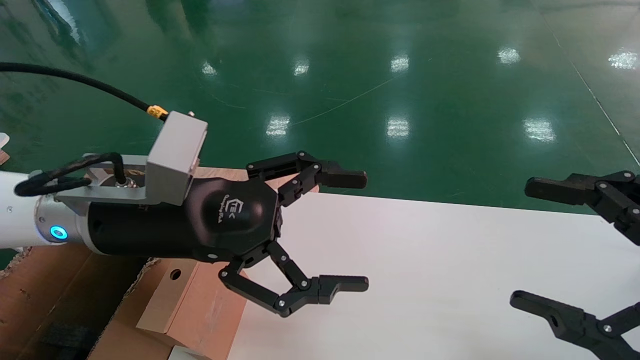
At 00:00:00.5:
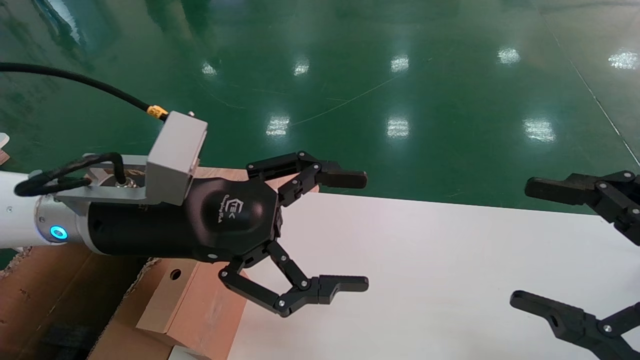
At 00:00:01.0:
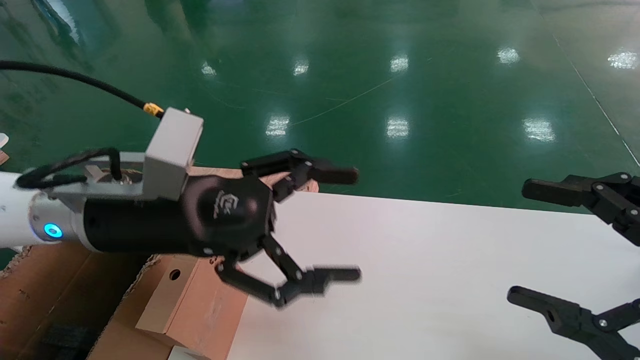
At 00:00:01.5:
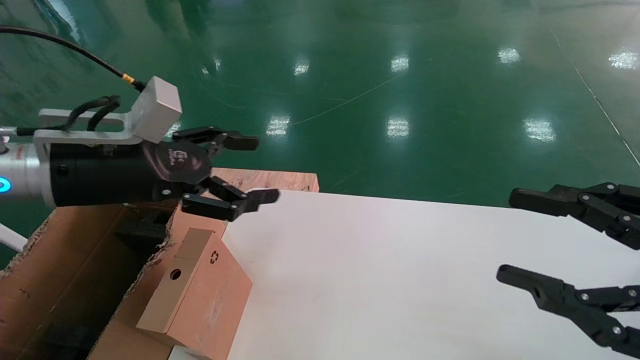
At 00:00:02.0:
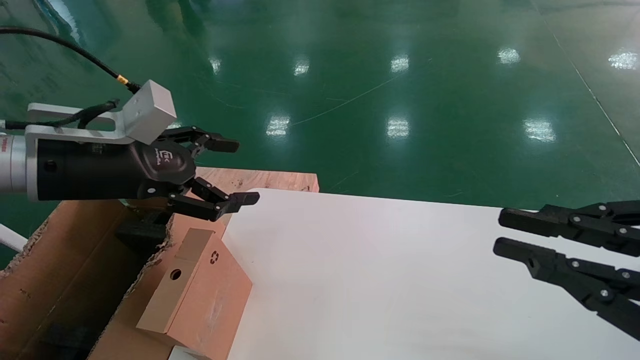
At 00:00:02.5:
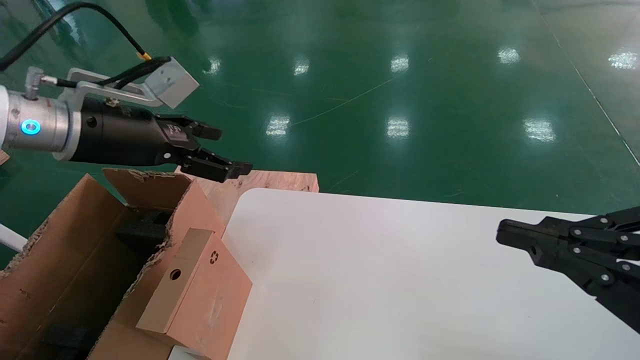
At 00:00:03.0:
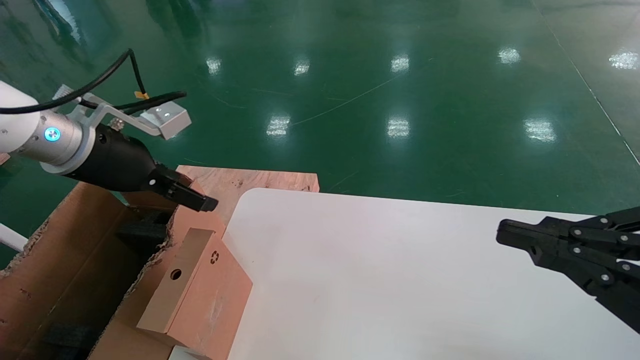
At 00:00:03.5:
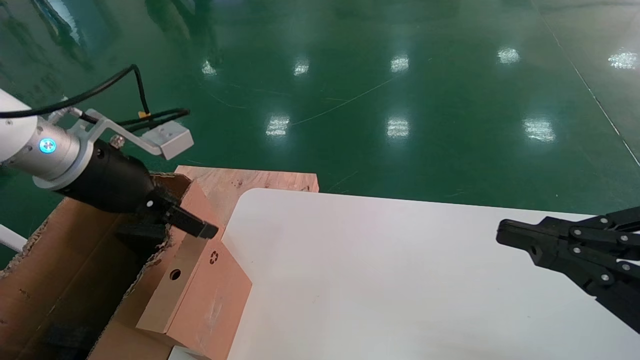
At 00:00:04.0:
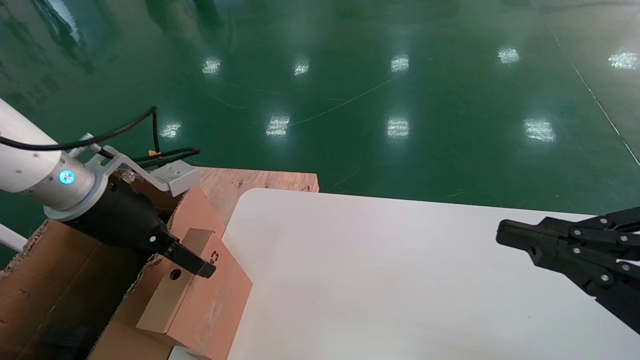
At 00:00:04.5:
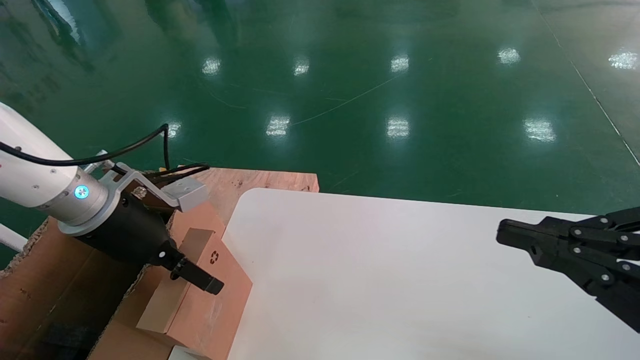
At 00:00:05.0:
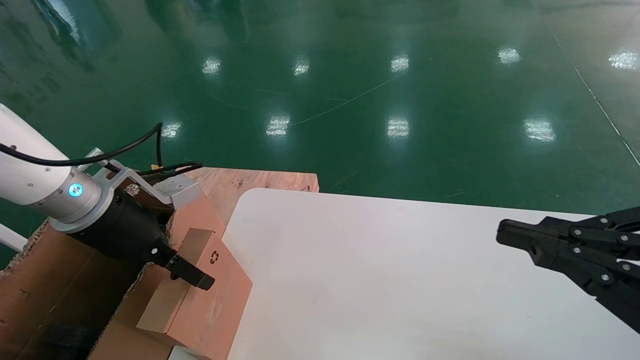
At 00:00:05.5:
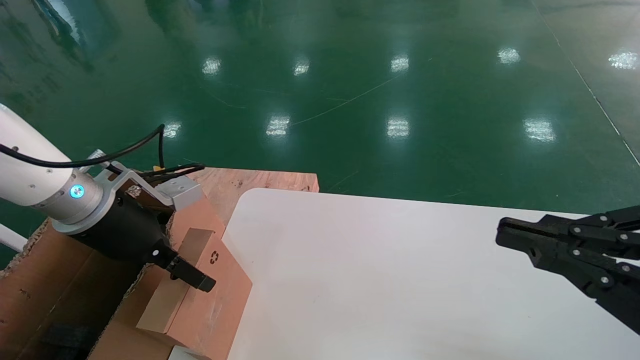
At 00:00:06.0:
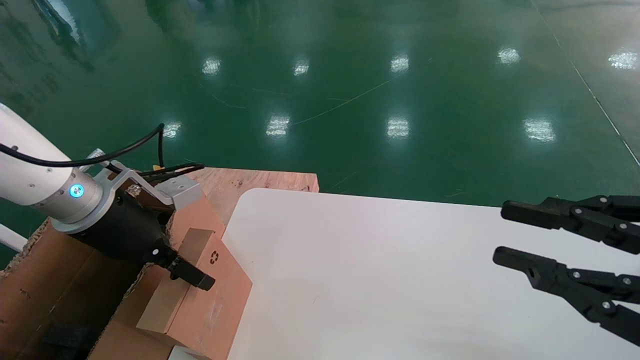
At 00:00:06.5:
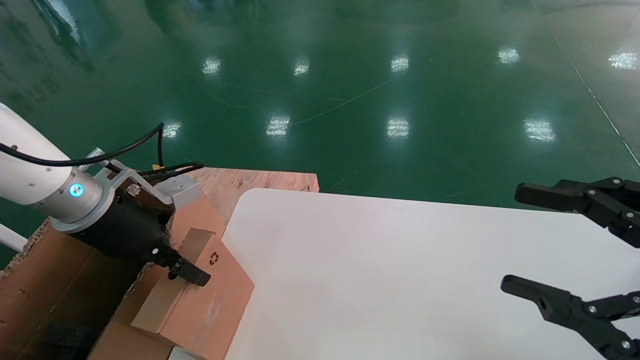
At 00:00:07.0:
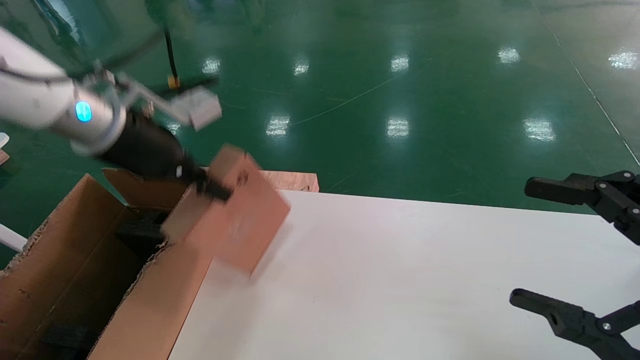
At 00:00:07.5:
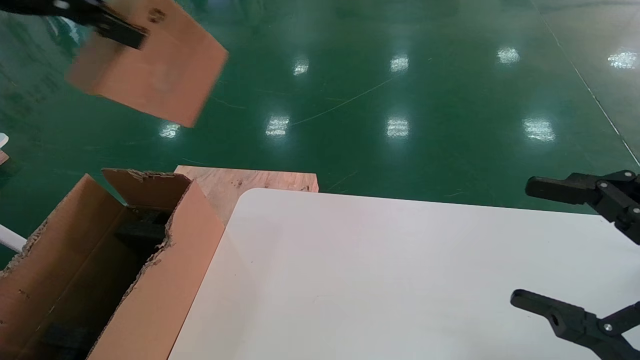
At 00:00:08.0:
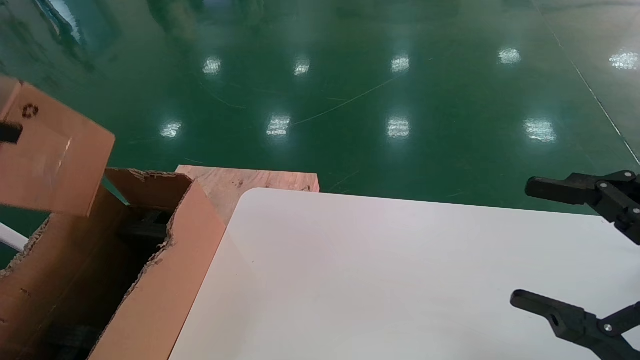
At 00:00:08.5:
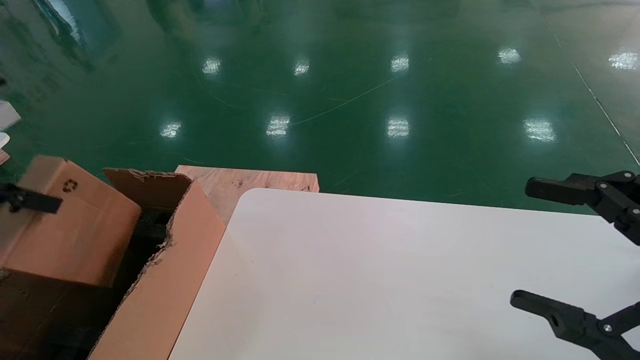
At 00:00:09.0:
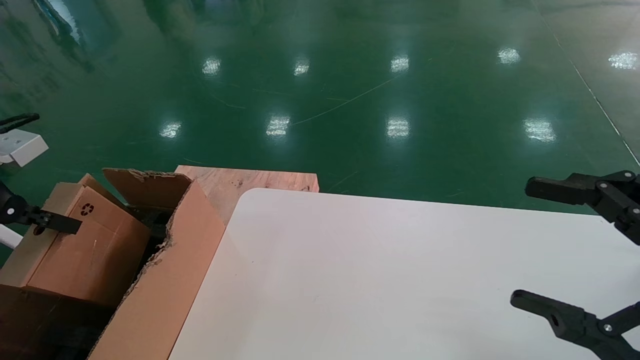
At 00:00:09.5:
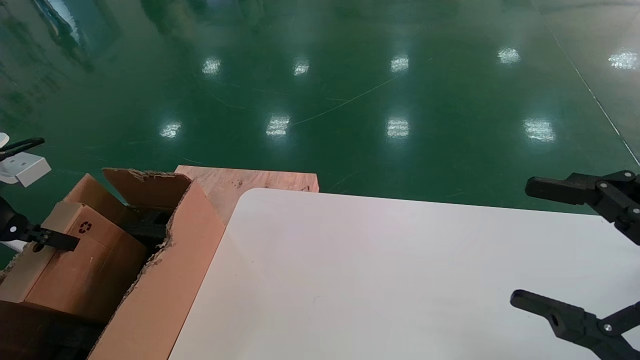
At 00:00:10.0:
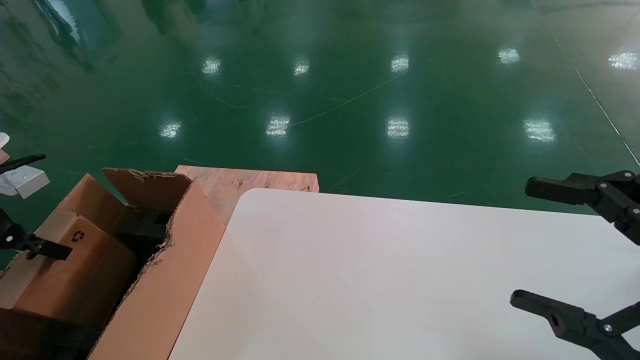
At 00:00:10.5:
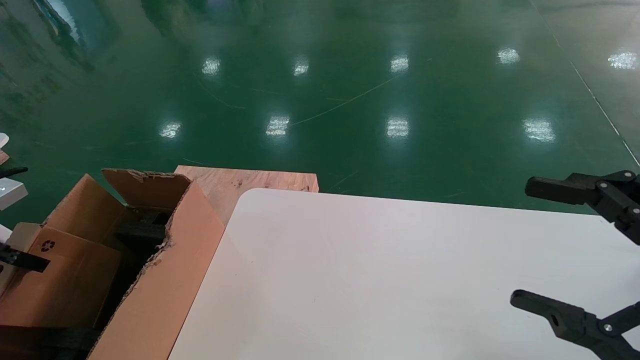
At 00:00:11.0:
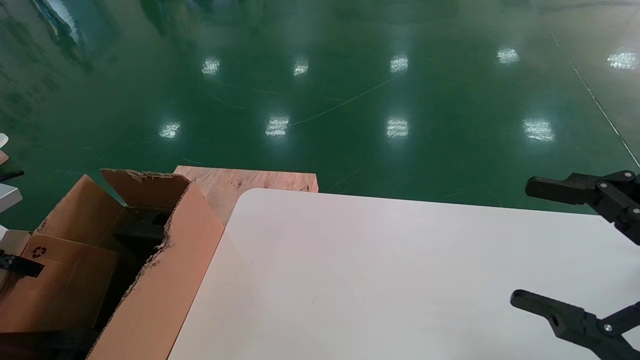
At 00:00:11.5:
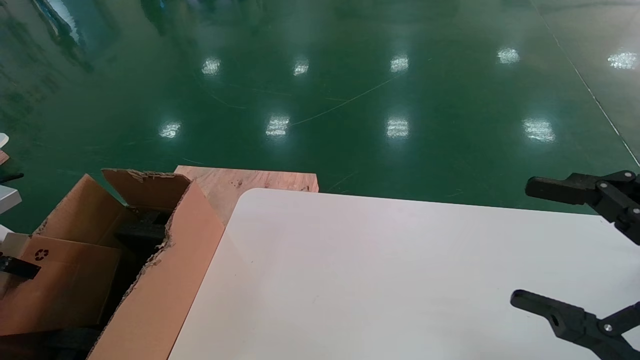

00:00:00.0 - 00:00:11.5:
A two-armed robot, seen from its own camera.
Task of the whole recording: place the small box on the table into the large box on the left.
Step, 00:00:01.5 - 00:00:06.5: Pick up the mouse and the power cord paper box.
00:00:00.0 - 00:00:02.0: The left gripper moves to the left, some 10 cm, while the right gripper closes its fingers.
00:00:02.0 - 00:00:04.0: The left gripper shifts by about 5 cm.
00:00:04.0 - 00:00:06.0: The grippers make only small movements.
00:00:06.0 - 00:00:07.5: The left gripper is displaced upward by some 25 cm, and closes its fingers. The right gripper opens.
00:00:07.5 - 00:00:09.5: The left gripper shifts roughly 25 cm downward and to the left.
00:00:09.5 - 00:00:11.5: The left gripper travels to the left by approximately 5 cm.

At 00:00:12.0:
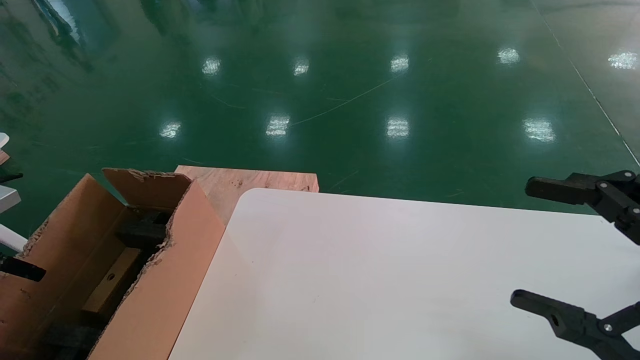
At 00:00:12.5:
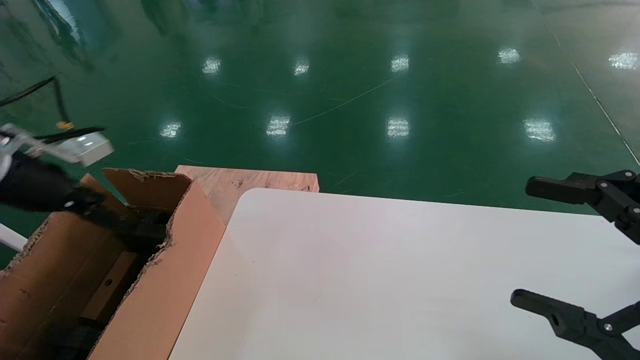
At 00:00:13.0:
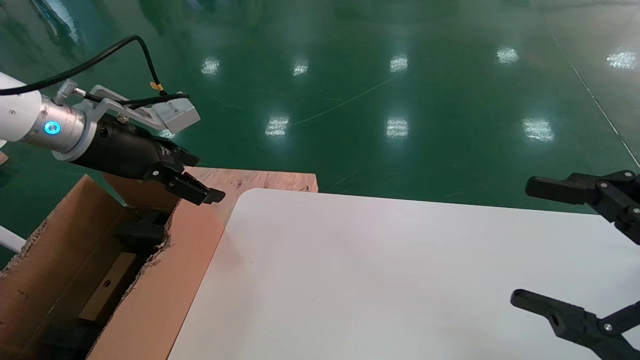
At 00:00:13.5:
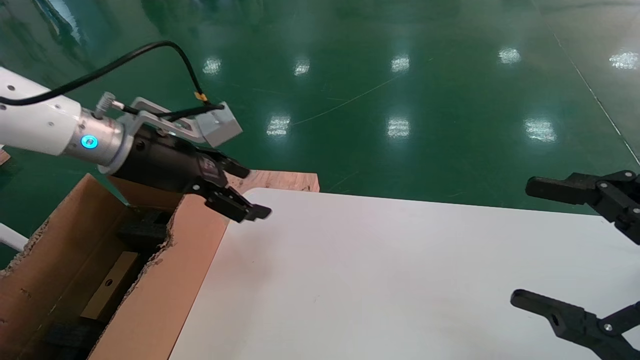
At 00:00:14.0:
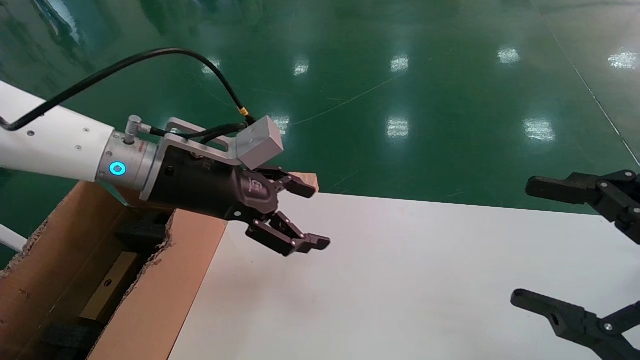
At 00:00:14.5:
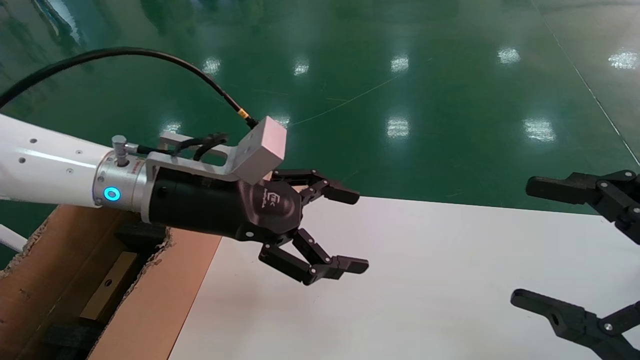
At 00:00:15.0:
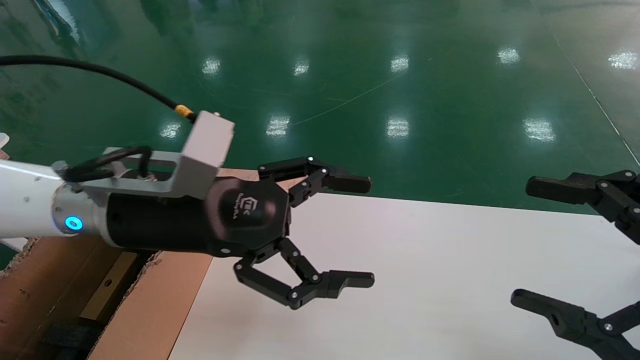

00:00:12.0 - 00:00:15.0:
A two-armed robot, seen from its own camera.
Task of the whole recording: place the small box on the table into the large box on the left.
00:00:12.0 - 00:00:13.5: The left gripper heads to the right, covering some 30 cm, and opens its fingers.
00:00:13.5 - 00:00:15.0: The left gripper is displaced to the right and backward by approximately 10 cm.
